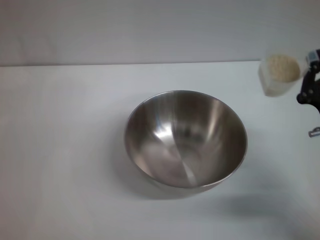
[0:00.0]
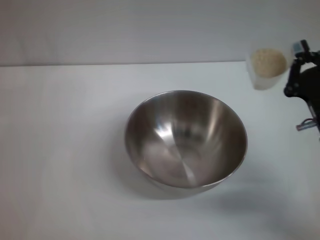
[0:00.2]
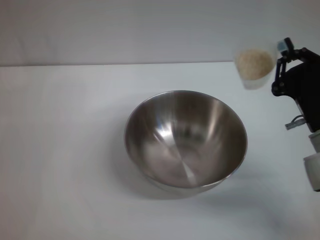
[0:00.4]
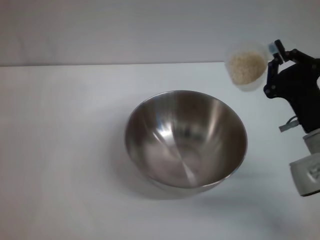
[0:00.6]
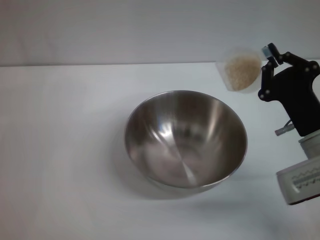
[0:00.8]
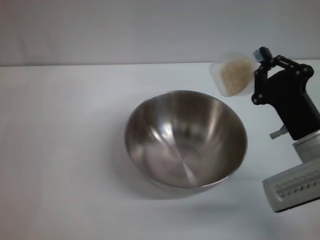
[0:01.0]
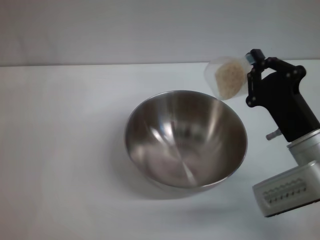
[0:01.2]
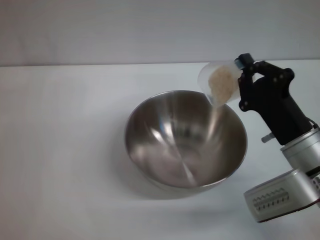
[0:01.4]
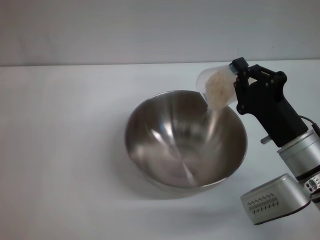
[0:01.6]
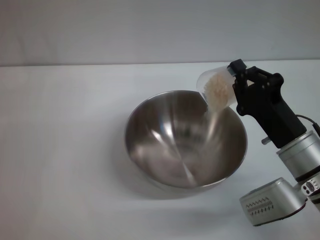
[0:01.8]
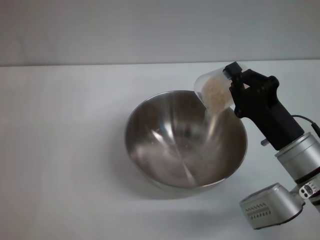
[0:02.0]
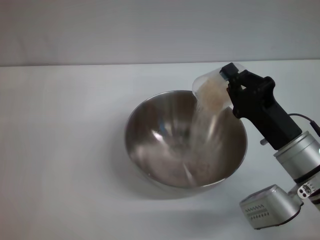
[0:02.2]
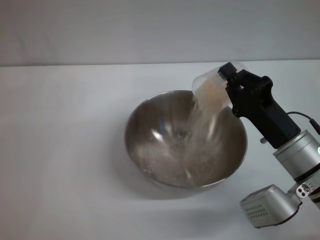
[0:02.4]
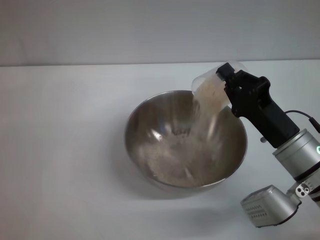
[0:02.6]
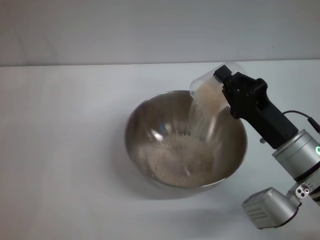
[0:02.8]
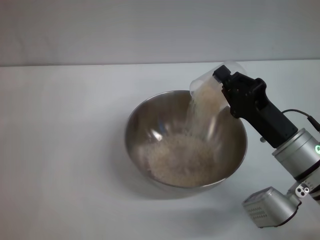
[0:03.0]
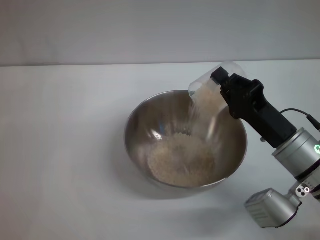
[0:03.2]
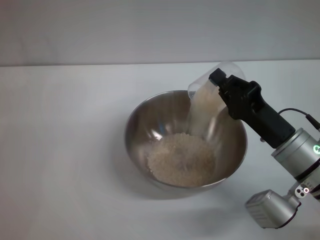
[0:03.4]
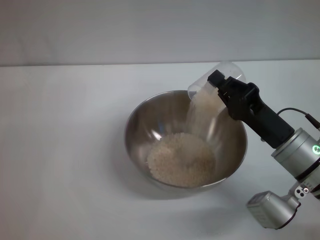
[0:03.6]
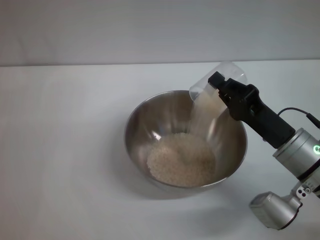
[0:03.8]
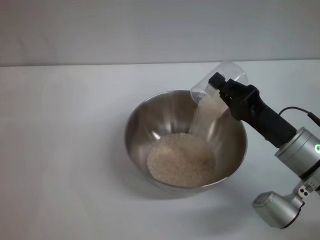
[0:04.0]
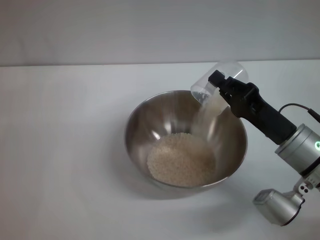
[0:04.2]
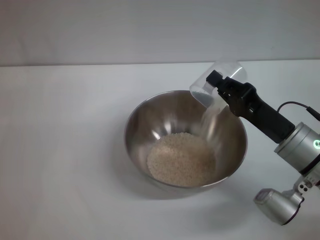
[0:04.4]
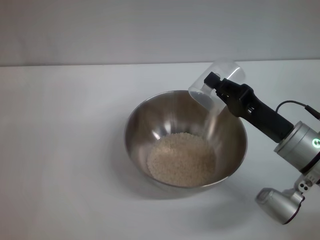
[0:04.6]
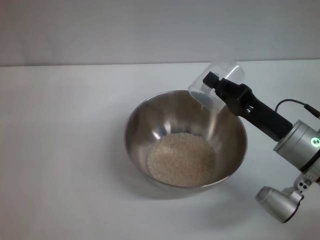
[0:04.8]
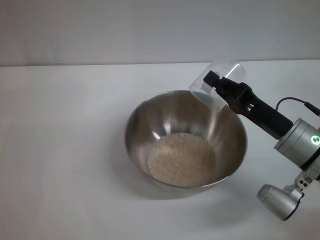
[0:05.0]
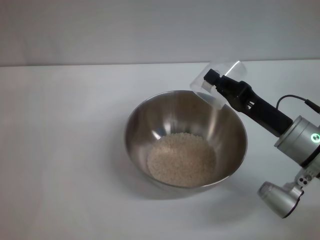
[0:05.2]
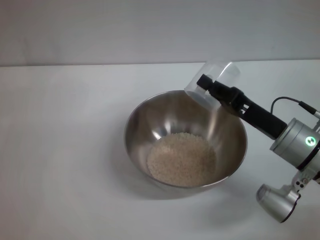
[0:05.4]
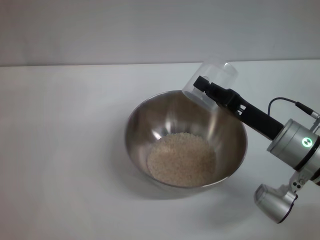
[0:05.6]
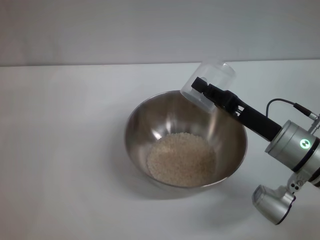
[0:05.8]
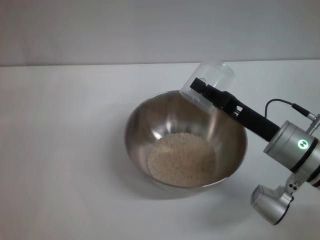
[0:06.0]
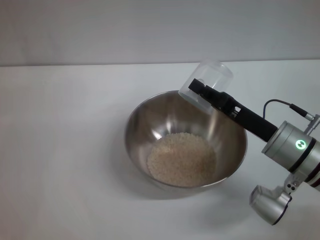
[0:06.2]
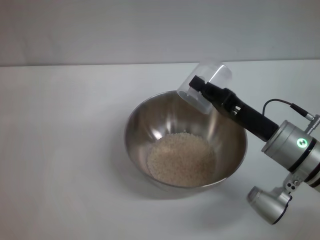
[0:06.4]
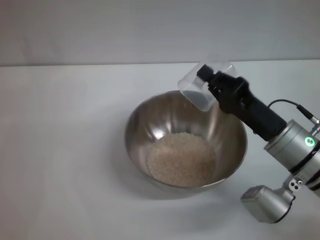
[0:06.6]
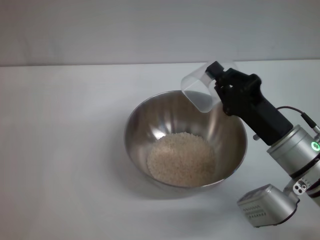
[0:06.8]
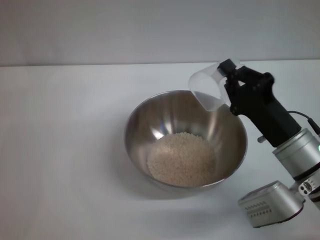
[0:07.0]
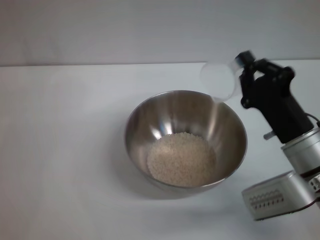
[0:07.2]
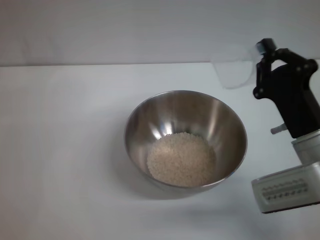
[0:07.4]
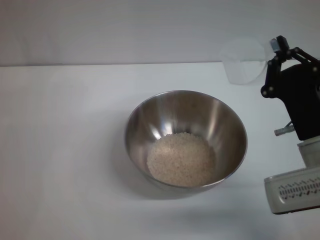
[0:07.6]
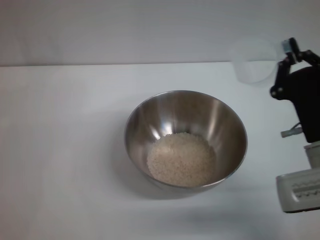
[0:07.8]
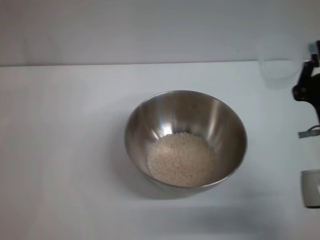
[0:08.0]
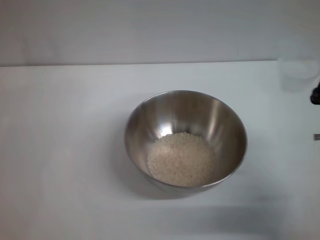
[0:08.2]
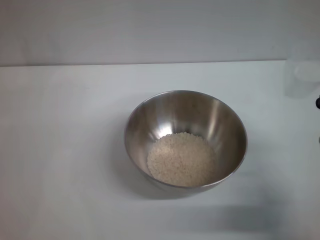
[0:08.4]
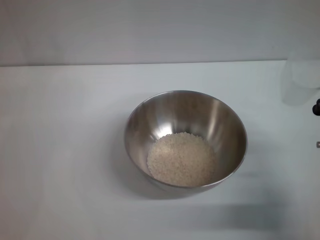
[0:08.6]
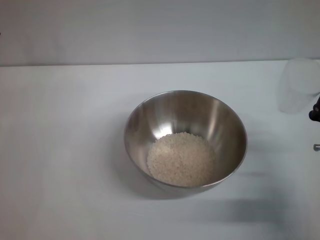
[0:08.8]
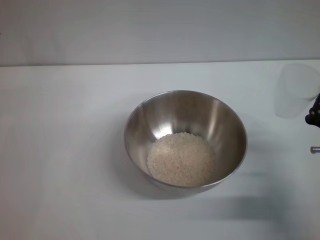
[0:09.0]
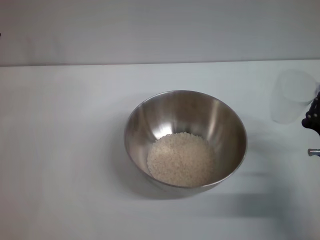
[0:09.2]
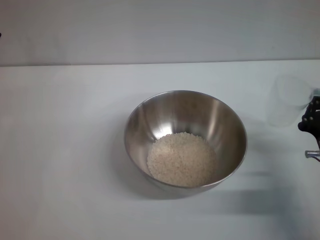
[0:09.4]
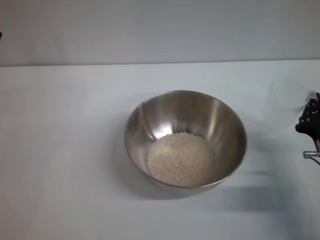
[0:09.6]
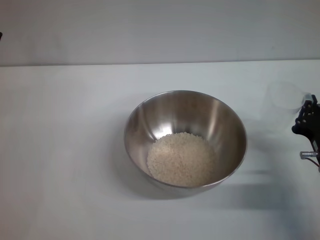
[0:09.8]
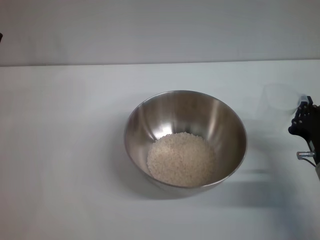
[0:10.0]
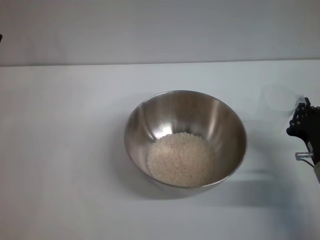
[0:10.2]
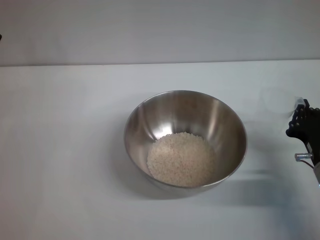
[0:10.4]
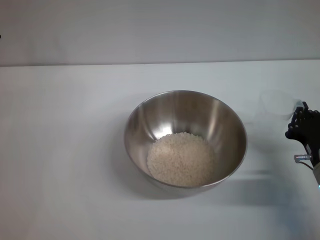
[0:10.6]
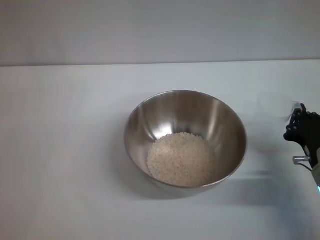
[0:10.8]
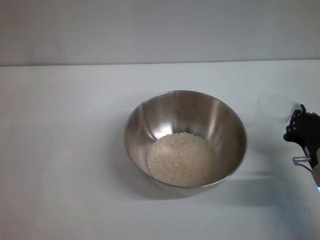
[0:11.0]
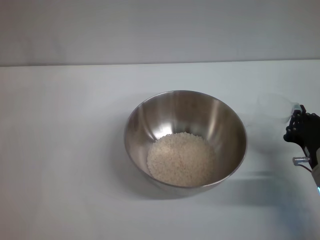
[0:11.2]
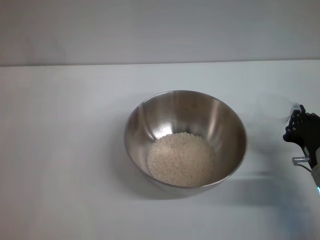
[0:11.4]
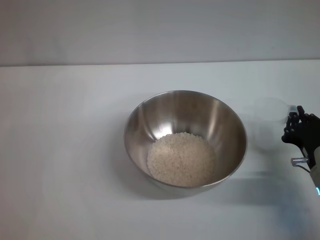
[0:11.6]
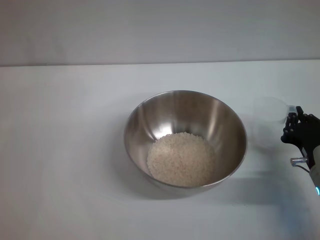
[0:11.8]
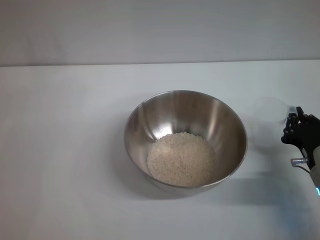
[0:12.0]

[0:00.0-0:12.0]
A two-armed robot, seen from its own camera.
Task of the whole recording: Place the bowl in the middle of the table with one hand and pour the rice from the grain cup into it with the other hand.
Step, 0.0 to 6.8 s: Pour the rice from the cup into the bowl with the right gripper.
0.0 to 1.6 s: The right gripper is displaced to the left by approximately 5 cm.
3.0 to 4.4 s: There are only small adjustments of the grippers.
4.4 to 6.0 s: The grippers move only a little.
7.6 to 9.0 s: The right gripper changes place by approximately 5 cm.
9.0 to 10.4 s: The grippers move only a little.
10.4 to 12.0 s: Both grippers stay put.

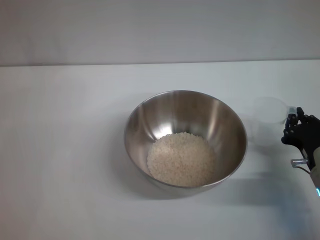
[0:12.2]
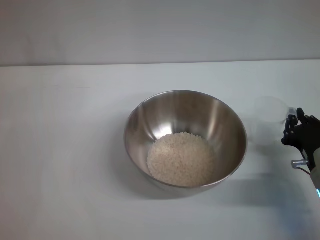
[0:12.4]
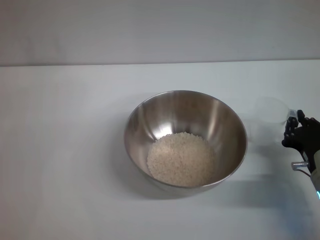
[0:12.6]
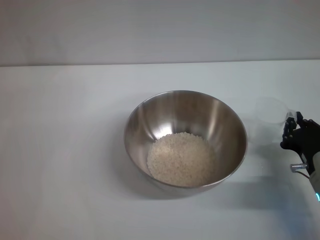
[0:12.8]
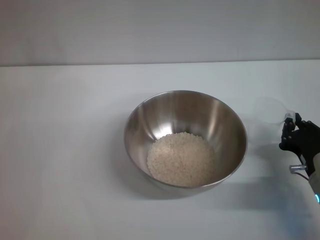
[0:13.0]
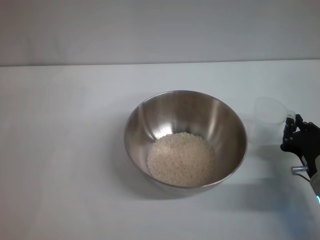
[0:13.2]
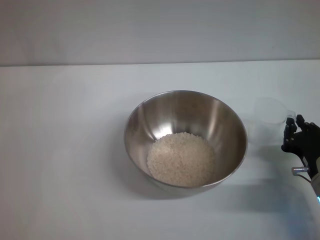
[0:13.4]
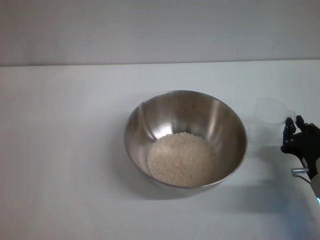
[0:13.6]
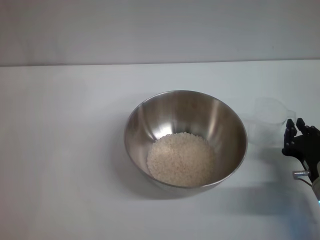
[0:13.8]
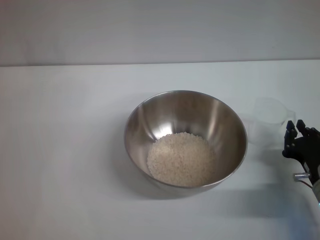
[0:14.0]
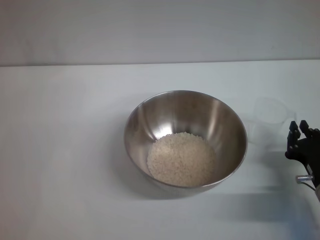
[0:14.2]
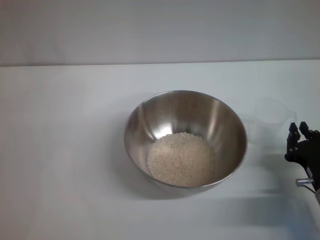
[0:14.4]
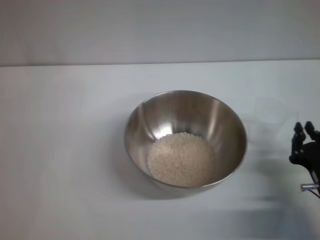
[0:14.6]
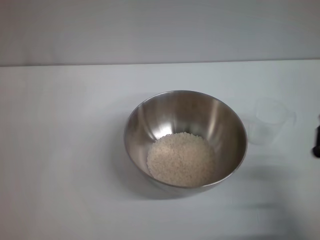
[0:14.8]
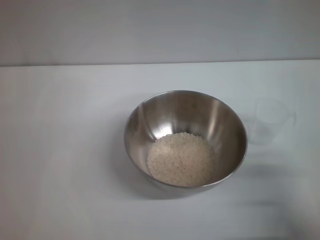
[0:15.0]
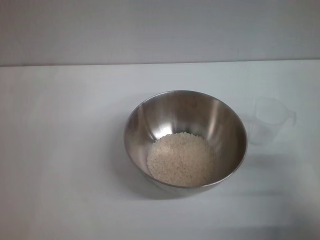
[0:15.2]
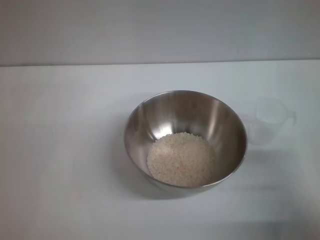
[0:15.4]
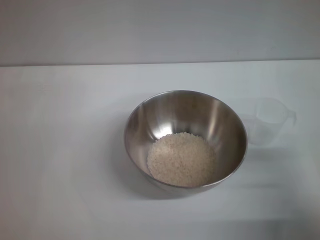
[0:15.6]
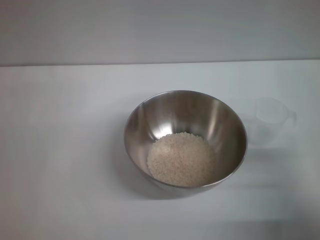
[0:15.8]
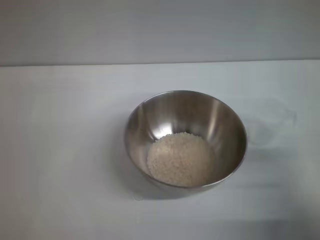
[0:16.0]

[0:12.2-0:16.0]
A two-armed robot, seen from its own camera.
Task of the whole recording: Place the bowl in the middle of the table with one hand and pour the rice from the grain cup into it with the other hand.
Step, 12.2 to 14.4 s: Place the cup on the table with the right gripper.
12.2 to 13.4 s: Both grippers stay about where they are.
13.4 to 14.8 s: The right gripper moves backward, roughly 5 cm.
14.8 to 16.0 s: The right gripper shifts by some 5 cm, and opens up.

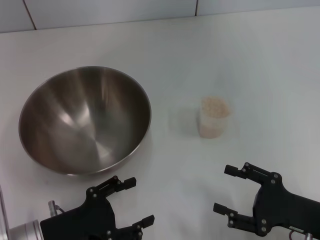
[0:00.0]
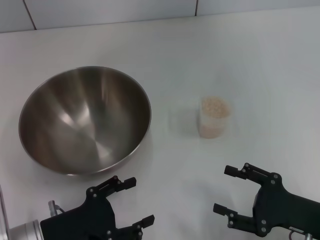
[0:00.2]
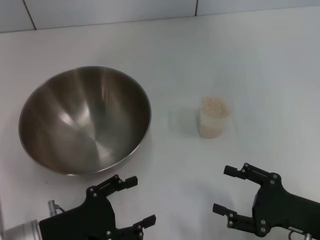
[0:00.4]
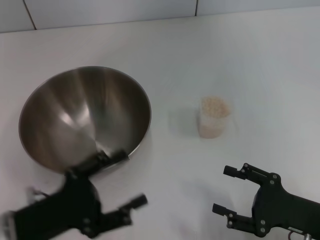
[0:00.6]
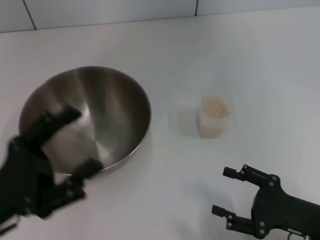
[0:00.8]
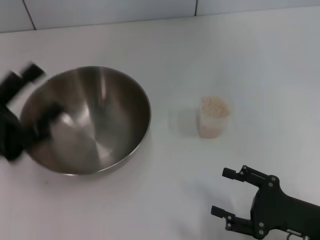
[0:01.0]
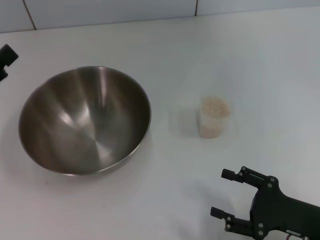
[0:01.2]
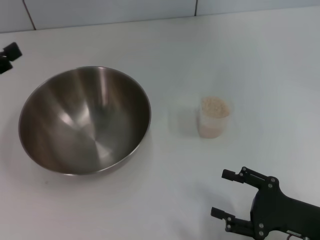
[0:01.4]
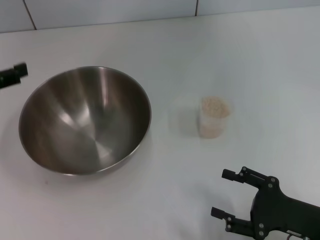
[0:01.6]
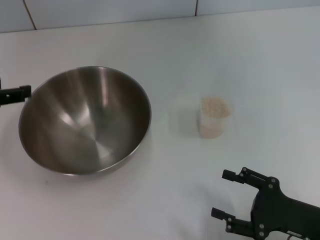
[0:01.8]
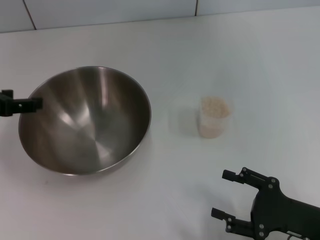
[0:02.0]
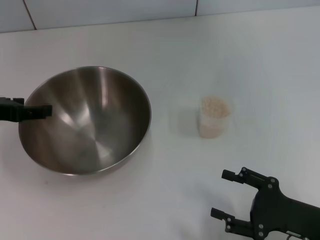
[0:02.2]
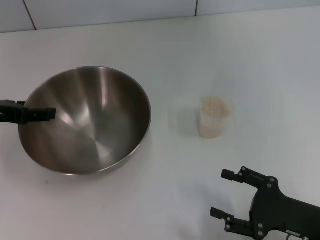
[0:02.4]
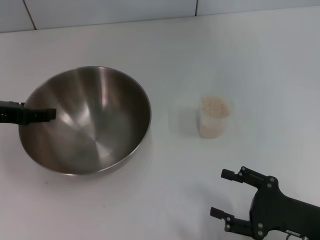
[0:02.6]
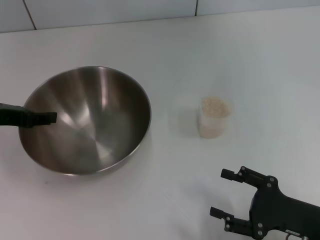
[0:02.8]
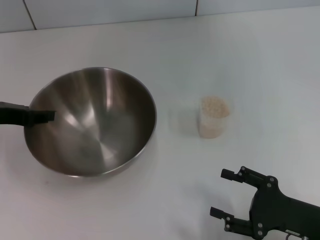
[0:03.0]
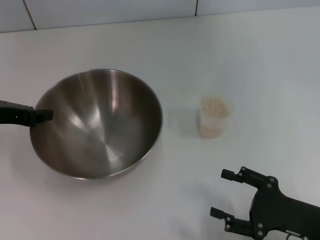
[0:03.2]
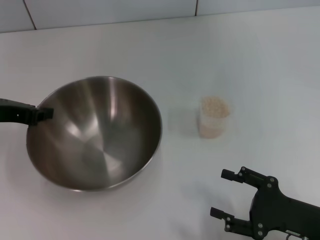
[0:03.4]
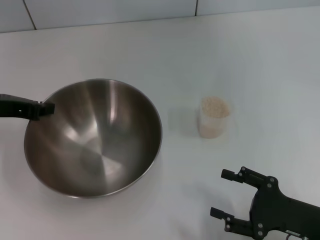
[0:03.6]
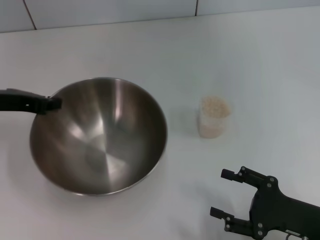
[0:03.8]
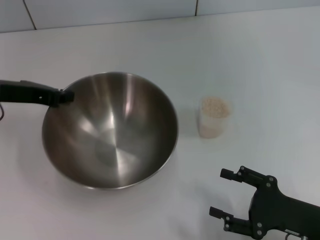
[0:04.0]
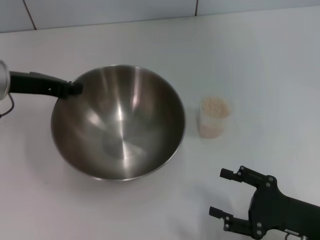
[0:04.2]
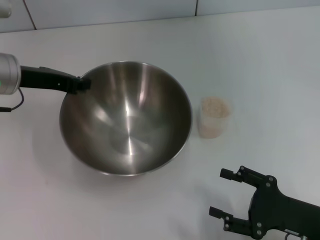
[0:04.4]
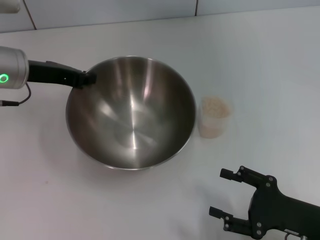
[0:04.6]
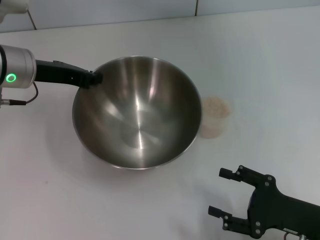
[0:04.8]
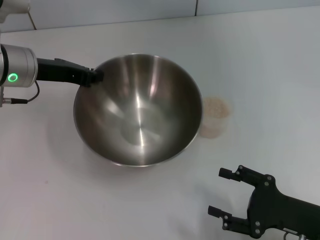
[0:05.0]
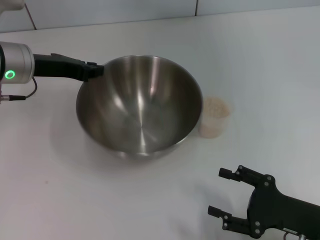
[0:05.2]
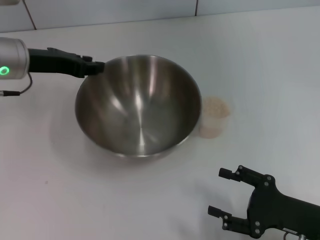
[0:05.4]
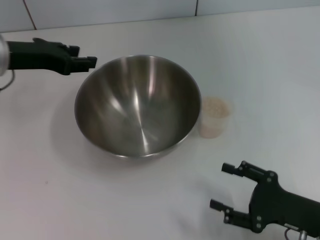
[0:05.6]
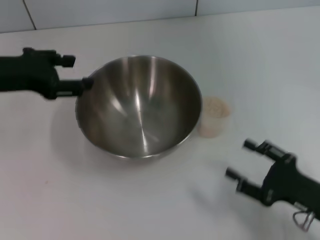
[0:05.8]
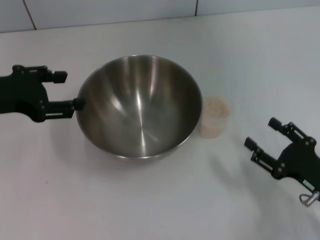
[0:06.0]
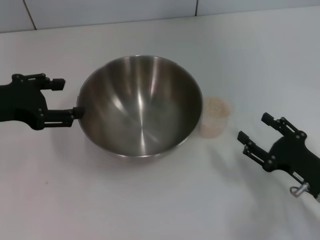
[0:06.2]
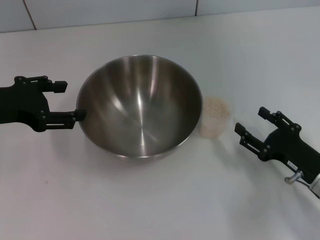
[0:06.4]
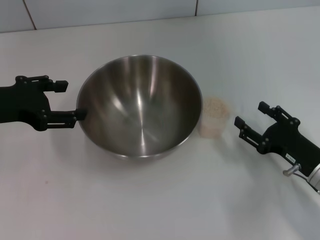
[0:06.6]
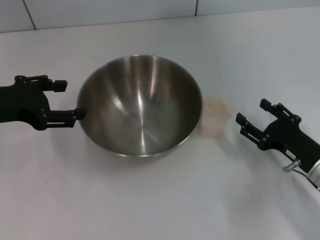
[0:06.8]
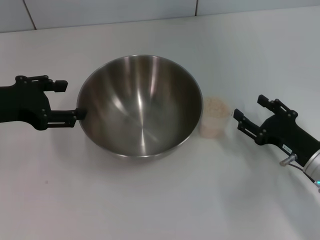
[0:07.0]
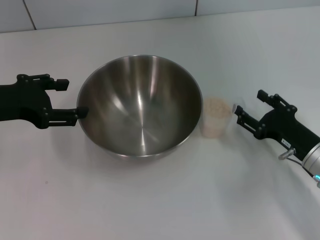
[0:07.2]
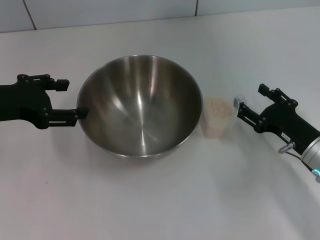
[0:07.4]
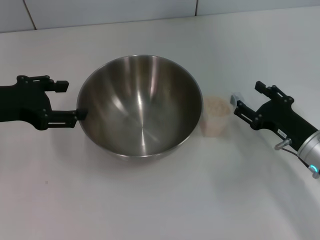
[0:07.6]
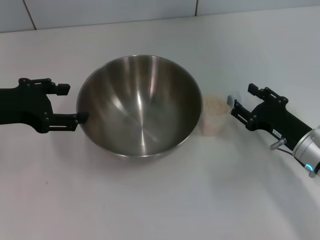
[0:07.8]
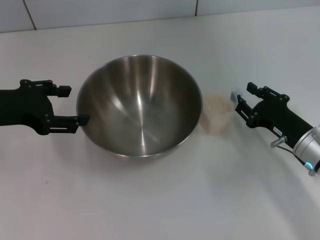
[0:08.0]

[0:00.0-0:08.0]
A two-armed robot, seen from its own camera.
Task of the whole recording: Place the bowl in the middle of the table with one hand and pour the rice from the grain cup into it with the other hand.
Step, 0.0 to 4.0 s: Pick up the bowl with the left gripper.
Step, 4.2 to 5.6 s: Place the bowl in the center of view with the left gripper.
0.0 to 1.6 s: The left gripper moves upward, forward and to the left, approximately 20 cm.
1.6 to 3.2 s: The left gripper changes place by some 5 cm, and closes.
3.2 to 4.8 s: The left gripper moves to the right and forward, roughly 10 cm.
4.8 to 6.4 s: The right gripper is displaced forward by about 5 cm. The left gripper heads backward and to the left, covering roughly 10 cm, and opens up.
6.4 to 8.0 s: The right gripper is displaced forward by roughly 5 cm.
